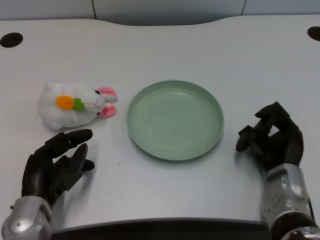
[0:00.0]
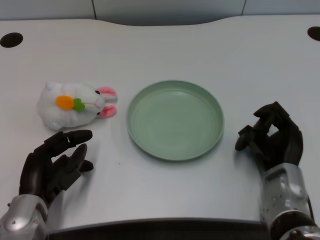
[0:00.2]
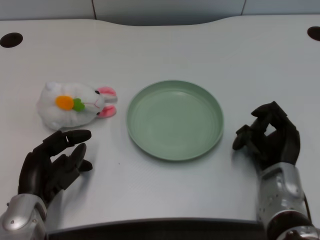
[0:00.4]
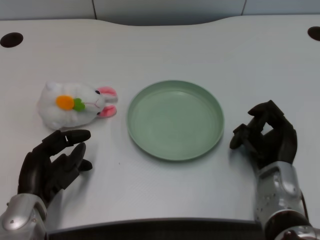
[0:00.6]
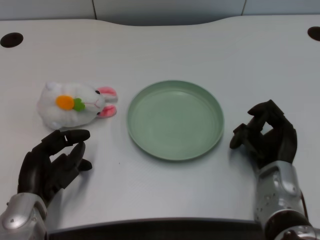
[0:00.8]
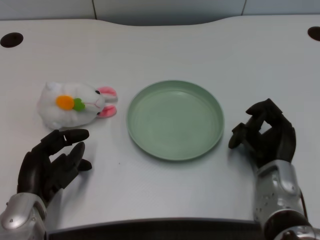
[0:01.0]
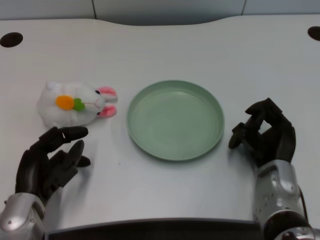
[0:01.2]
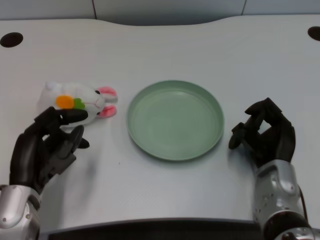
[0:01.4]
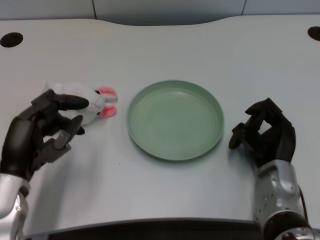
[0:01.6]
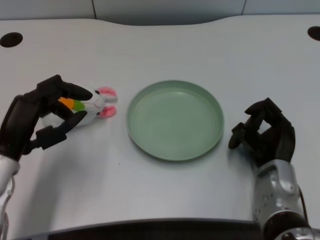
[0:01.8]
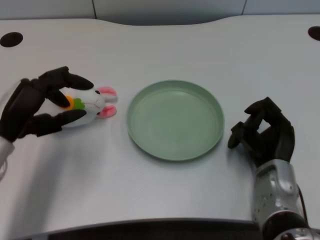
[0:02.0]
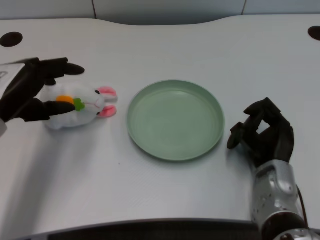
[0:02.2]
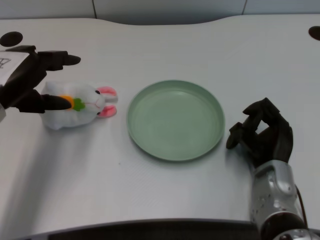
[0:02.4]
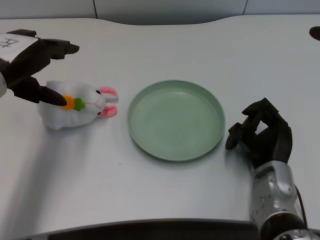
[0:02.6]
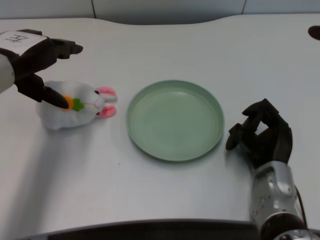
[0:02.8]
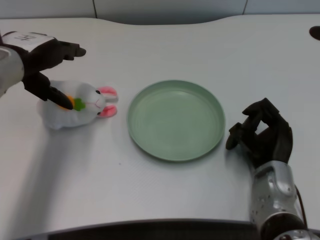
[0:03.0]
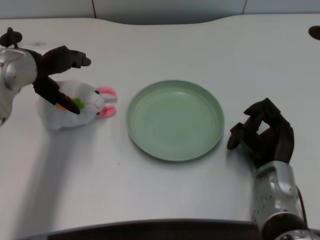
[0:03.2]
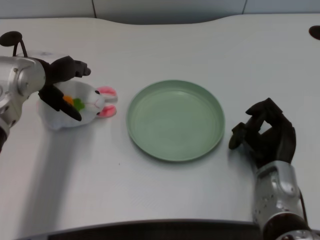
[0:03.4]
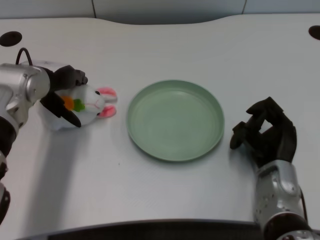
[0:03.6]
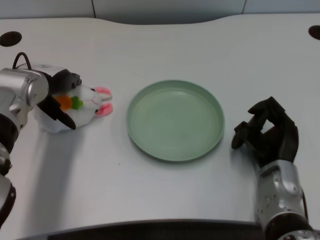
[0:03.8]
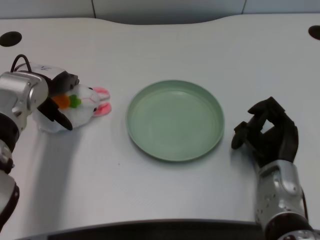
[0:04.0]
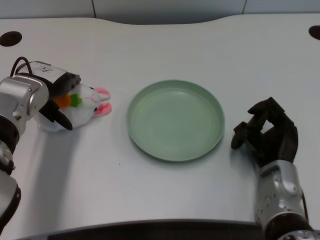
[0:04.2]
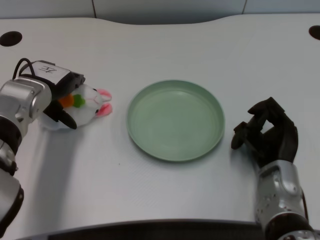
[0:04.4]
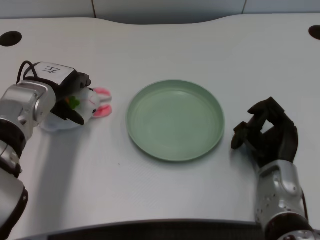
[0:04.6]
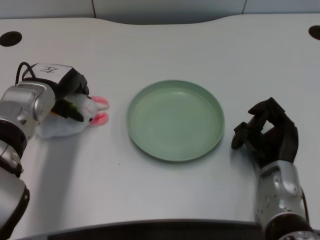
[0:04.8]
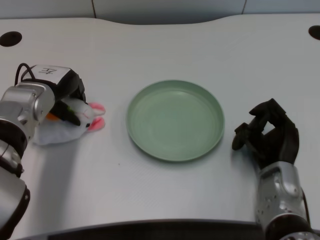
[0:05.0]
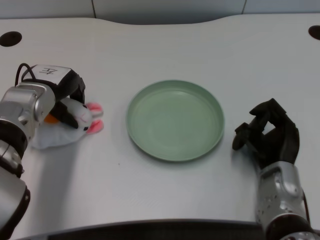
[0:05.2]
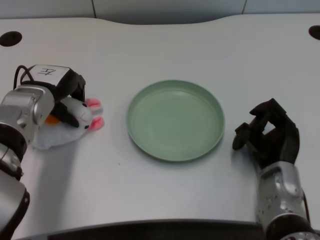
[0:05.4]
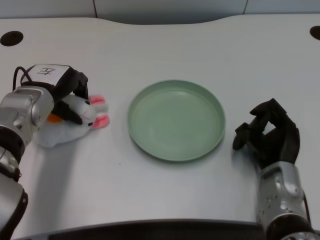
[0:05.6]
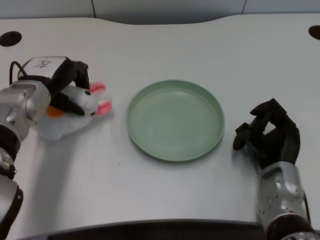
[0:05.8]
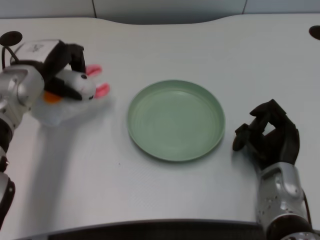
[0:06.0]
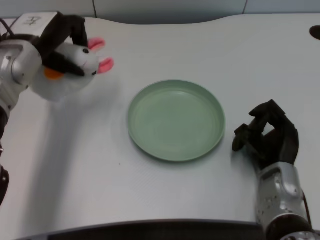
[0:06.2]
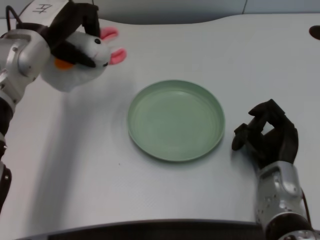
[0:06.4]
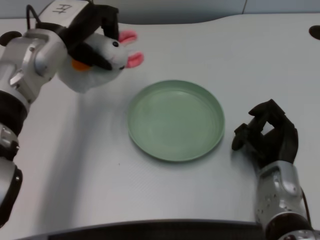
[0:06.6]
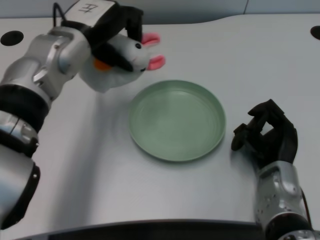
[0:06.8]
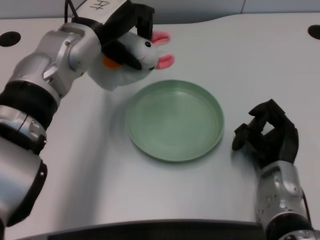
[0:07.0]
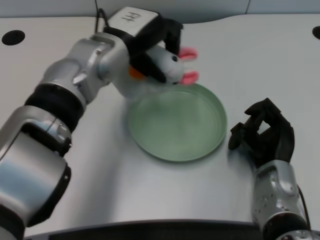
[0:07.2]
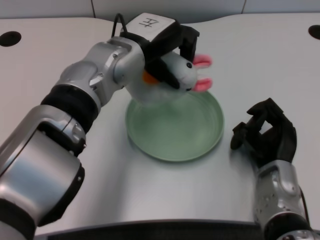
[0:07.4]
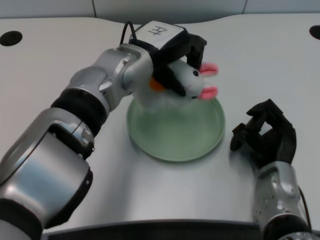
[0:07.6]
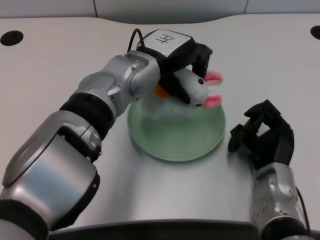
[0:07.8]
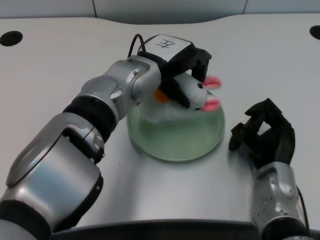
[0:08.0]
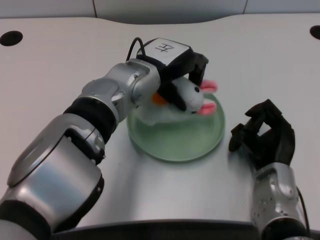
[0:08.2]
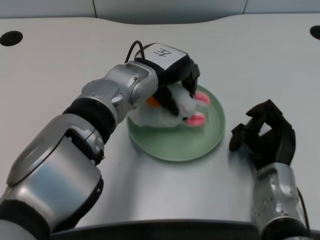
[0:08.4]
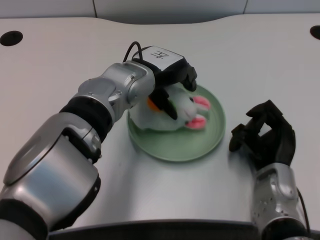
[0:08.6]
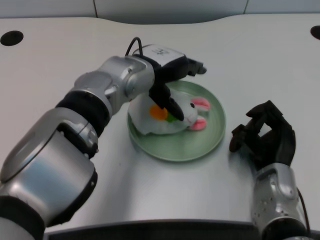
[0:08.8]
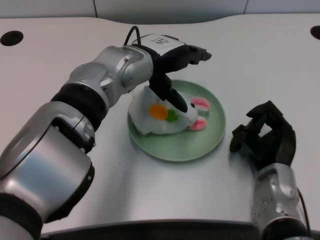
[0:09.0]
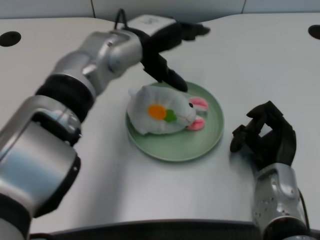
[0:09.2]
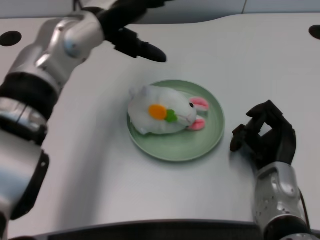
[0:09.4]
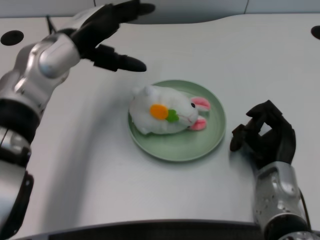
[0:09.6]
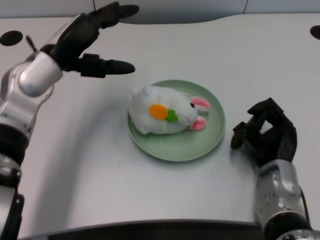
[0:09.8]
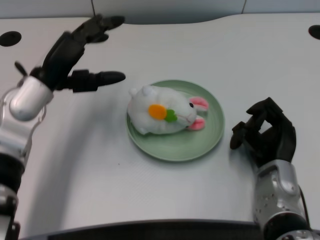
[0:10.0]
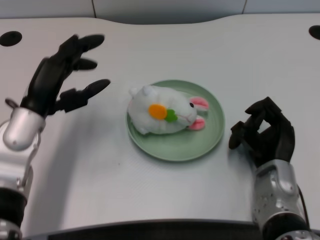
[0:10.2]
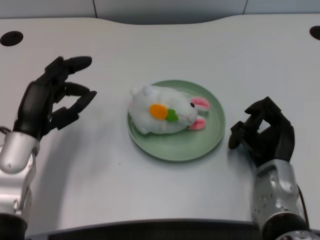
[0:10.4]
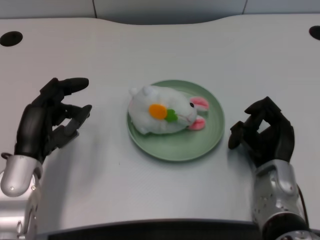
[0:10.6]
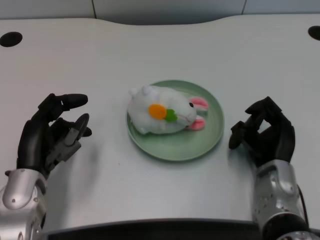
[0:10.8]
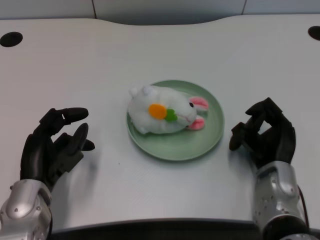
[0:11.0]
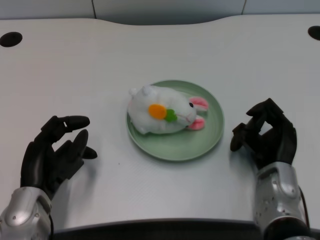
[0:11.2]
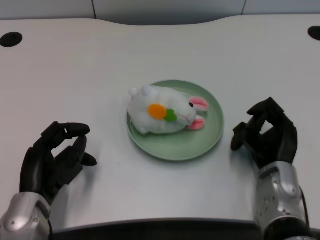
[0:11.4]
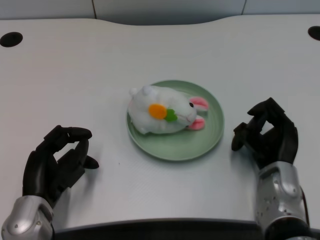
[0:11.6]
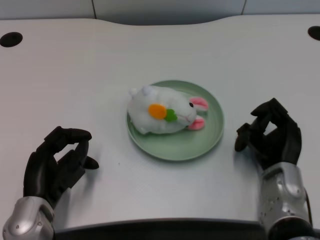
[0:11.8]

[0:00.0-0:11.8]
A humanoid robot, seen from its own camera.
Task of the whole recording: pick up the rabbit doll from the table and place it on the plate.
Step, 0:01.4 to 0:05.8: Grasp the rabbit doll with the left gripper.
Step, 0:06.0 to 0:08.8: Place the rabbit doll into the plate with the left gripper.
0:01.4 to 0:03.0: The left hand heads upward and forward, covering about 20 cm.
0:03.0 to 0:04.4: The left hand heads downward, covering some 10 cm.
0:06.0 to 0:07.4: The left hand heads to the right, covering about 15 cm.
0:08.8 to 0:10.4: The left hand shifts approximately 20 cm to the left, backward and downward.
0:10.4 to 0:11.8: The left hand heads backward and downward, covering about 10 cm.

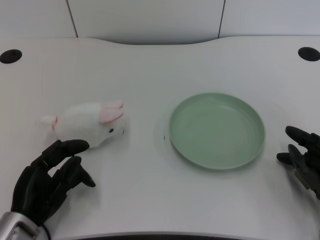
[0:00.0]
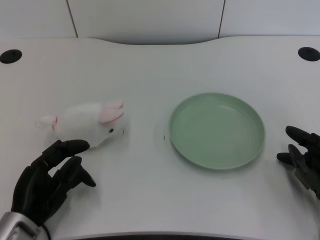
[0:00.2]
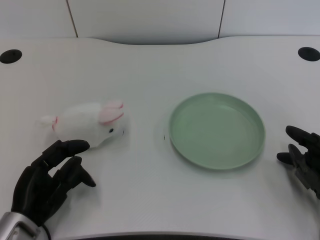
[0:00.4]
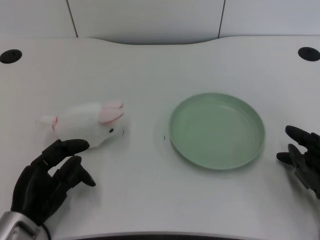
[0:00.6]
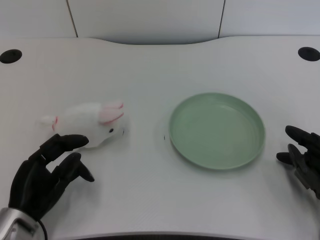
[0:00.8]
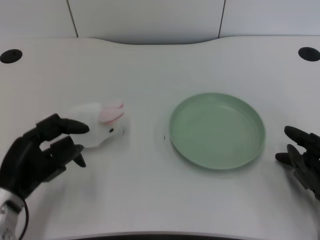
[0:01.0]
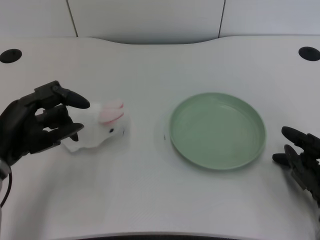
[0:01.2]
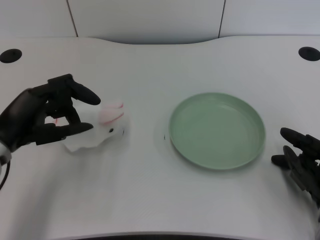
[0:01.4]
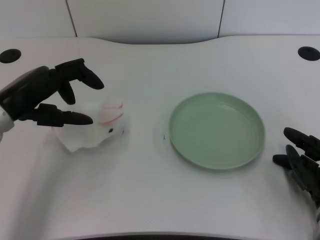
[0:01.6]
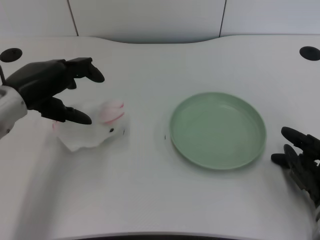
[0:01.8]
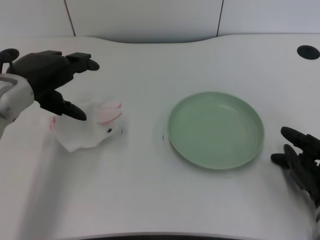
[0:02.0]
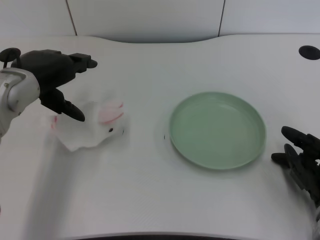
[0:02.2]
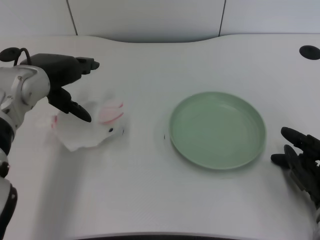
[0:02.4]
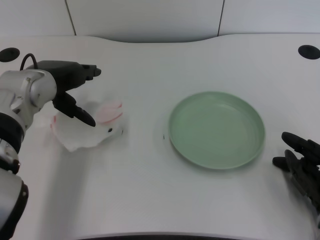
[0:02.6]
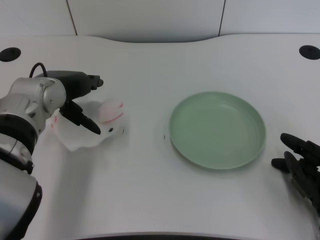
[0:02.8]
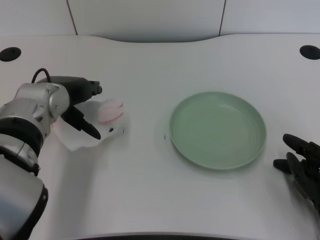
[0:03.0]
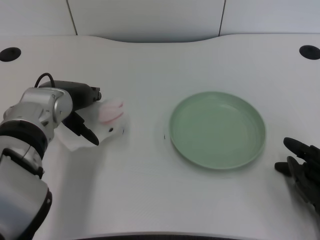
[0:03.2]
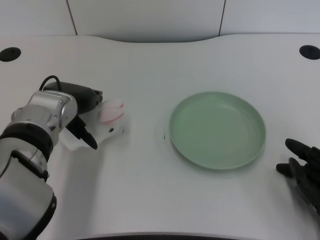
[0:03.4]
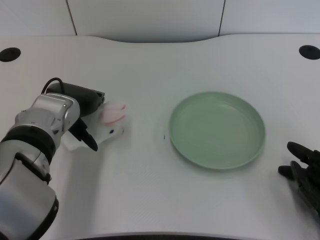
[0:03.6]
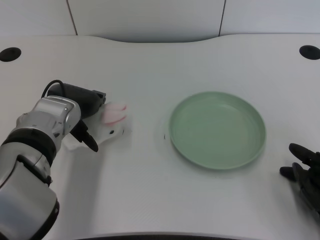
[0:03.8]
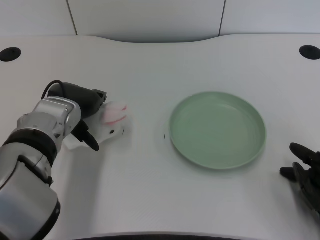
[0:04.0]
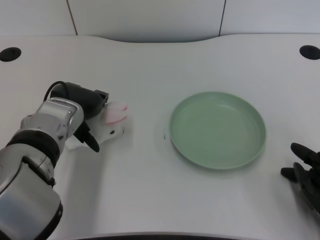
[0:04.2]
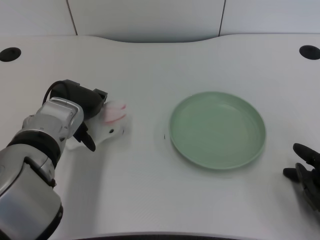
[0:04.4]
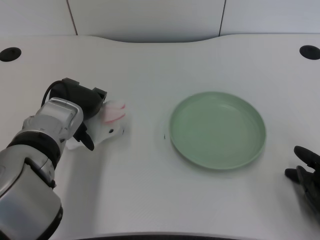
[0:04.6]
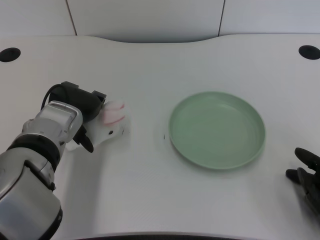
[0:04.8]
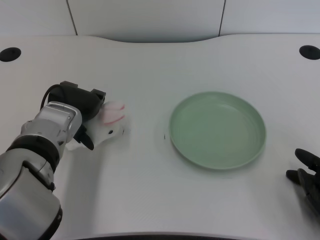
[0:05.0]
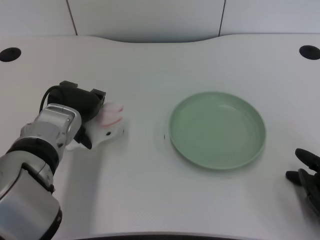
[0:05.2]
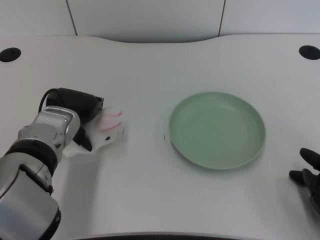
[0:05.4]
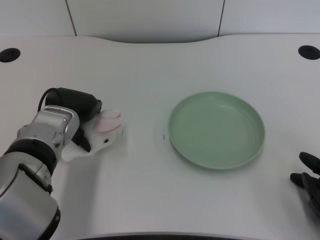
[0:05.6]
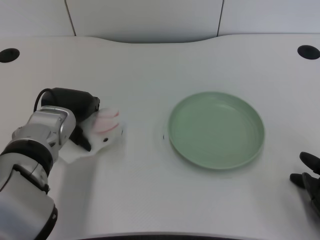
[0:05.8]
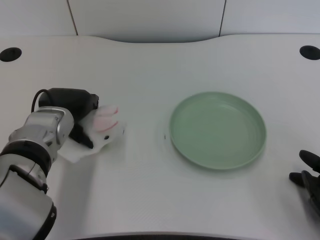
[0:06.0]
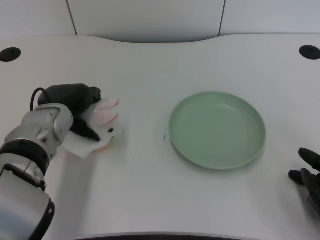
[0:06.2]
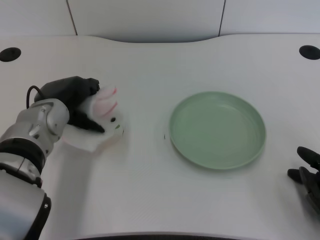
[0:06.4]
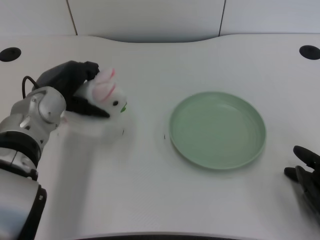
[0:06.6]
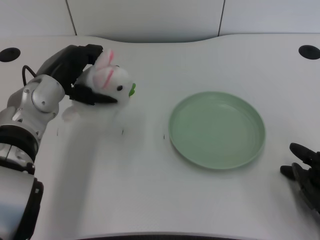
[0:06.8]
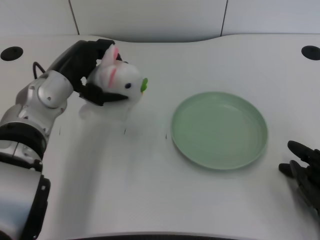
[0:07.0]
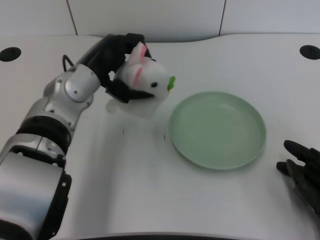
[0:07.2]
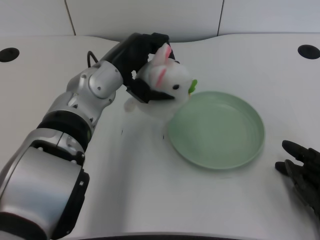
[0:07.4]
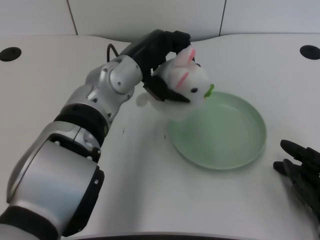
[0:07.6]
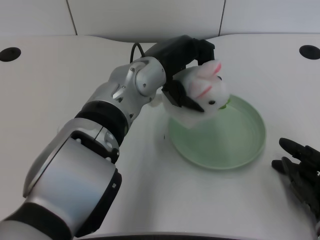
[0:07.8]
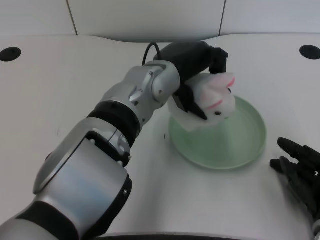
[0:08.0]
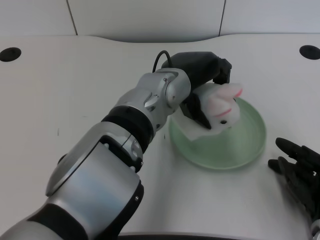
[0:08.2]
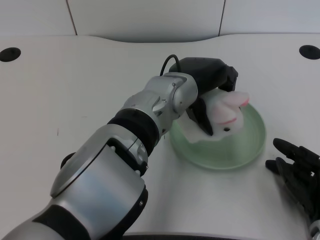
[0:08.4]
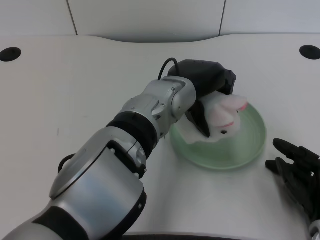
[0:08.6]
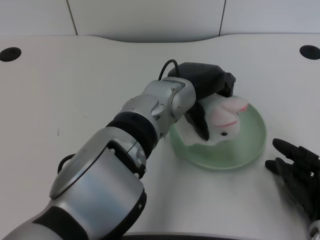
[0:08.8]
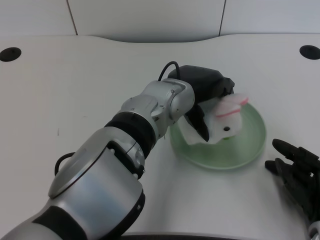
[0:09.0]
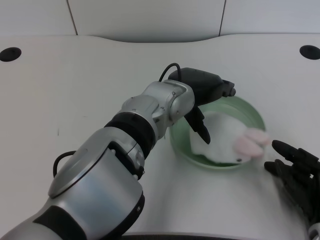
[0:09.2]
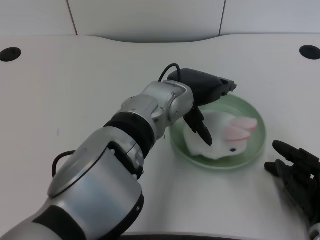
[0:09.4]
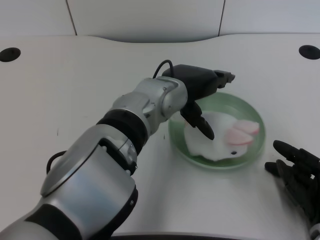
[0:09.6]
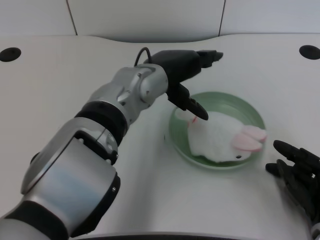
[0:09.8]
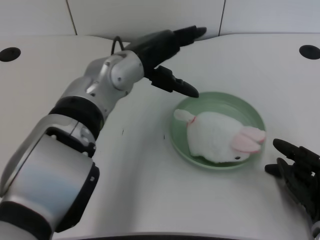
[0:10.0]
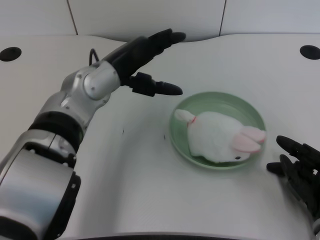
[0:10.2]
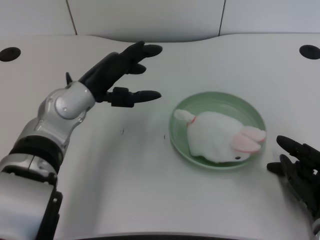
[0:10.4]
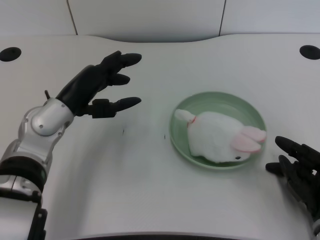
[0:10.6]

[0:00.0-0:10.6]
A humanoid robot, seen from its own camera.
Task of the whole recording: pick up the rabbit doll from the table and place it on the plate.
Step, 0:01.0 to 0:06.2: Grasp the rabbit doll with the left gripper.
Step, 0:06.4 to 0:09.2: Place the rabbit doll into the plate with the left gripper.
0:01.6 to 0:03.0: The left hand moves to the right and forward, about 10 cm.
0:04.6 to 0:06.0: The hands make only small movements.
0:06.0 to 0:07.6: The left hand is displaced to the right and upward by some 10 cm.
0:07.6 to 0:09.0: The left hand is displaced to the right by about 5 cm.
0:09.0 to 0:10.6: The left hand goes approximately 20 cm to the left.
